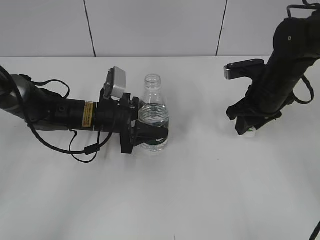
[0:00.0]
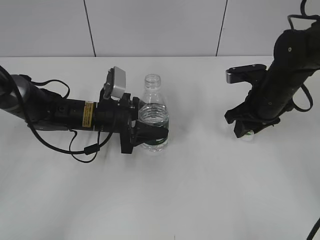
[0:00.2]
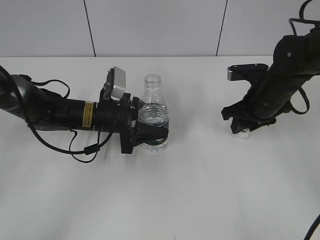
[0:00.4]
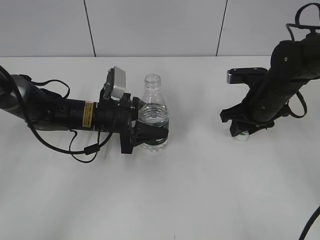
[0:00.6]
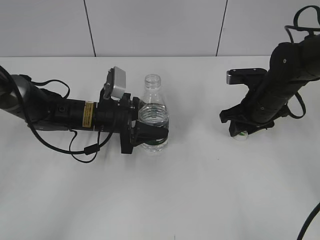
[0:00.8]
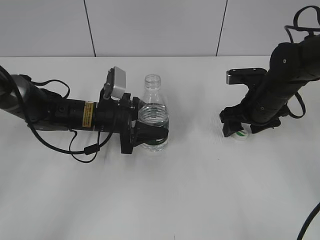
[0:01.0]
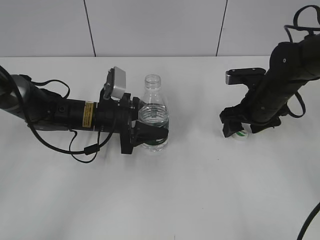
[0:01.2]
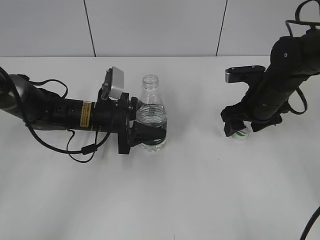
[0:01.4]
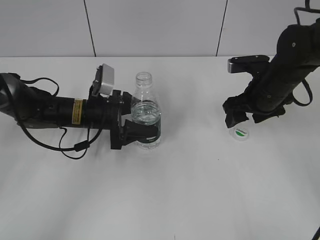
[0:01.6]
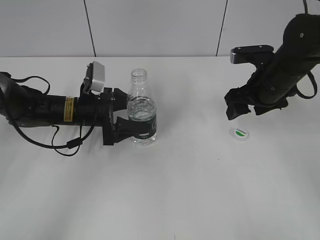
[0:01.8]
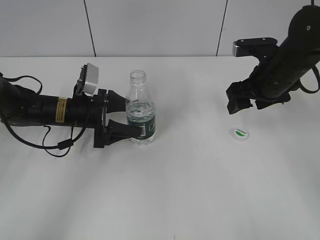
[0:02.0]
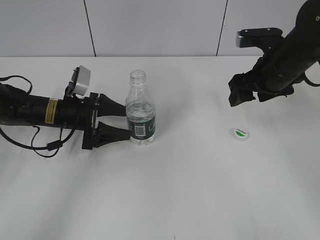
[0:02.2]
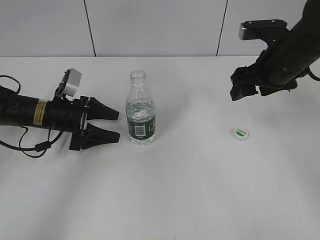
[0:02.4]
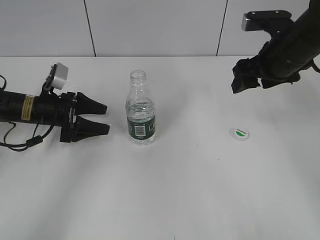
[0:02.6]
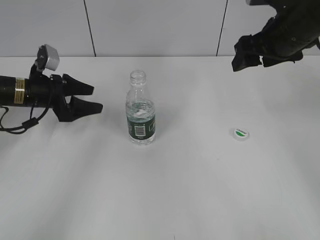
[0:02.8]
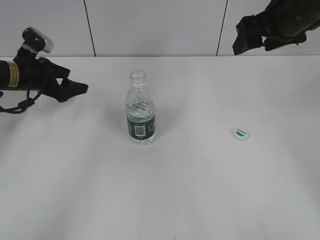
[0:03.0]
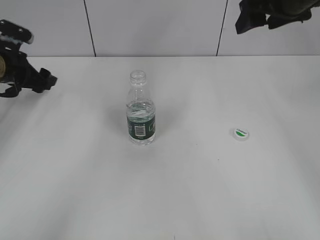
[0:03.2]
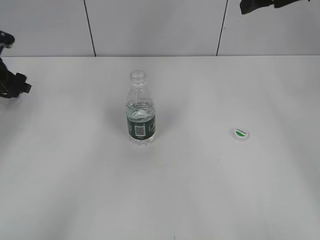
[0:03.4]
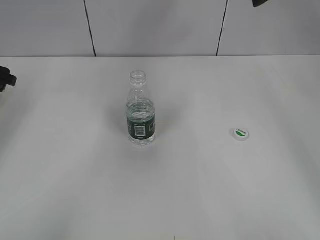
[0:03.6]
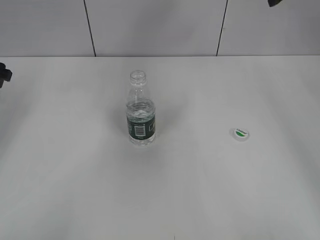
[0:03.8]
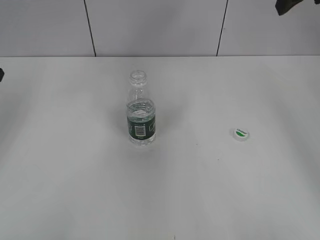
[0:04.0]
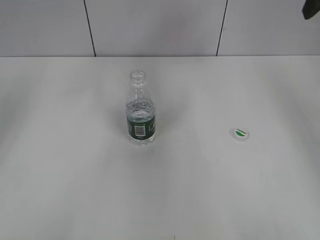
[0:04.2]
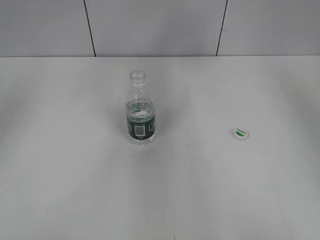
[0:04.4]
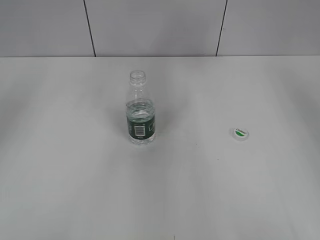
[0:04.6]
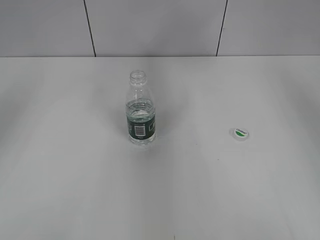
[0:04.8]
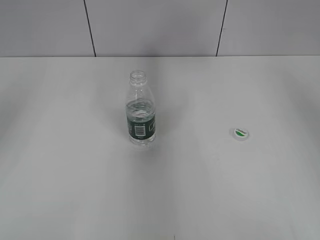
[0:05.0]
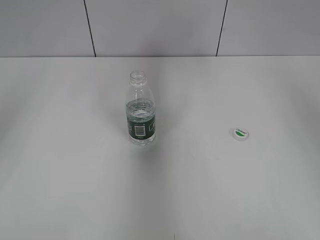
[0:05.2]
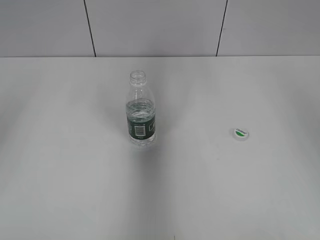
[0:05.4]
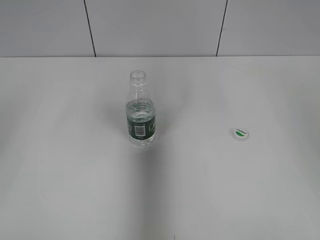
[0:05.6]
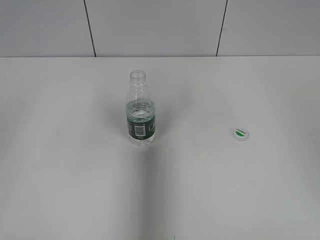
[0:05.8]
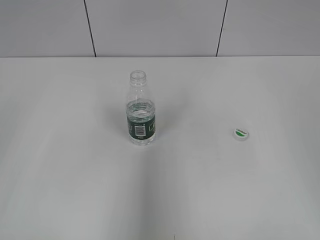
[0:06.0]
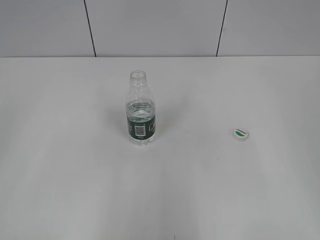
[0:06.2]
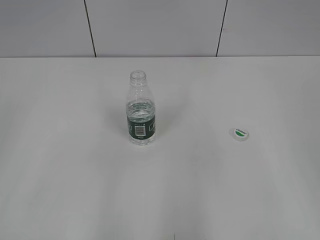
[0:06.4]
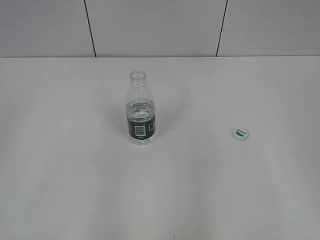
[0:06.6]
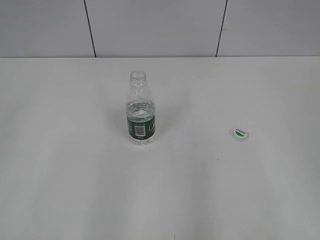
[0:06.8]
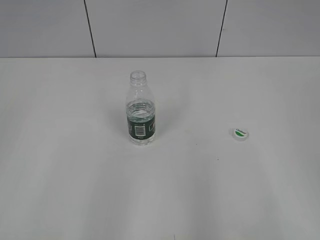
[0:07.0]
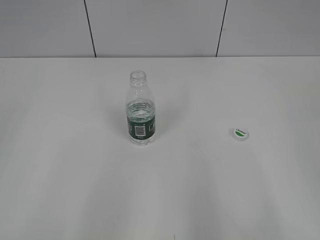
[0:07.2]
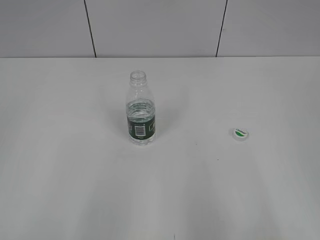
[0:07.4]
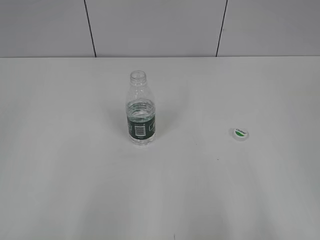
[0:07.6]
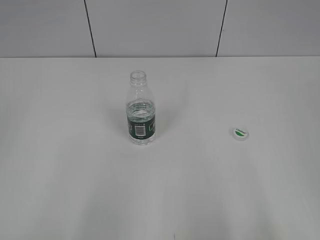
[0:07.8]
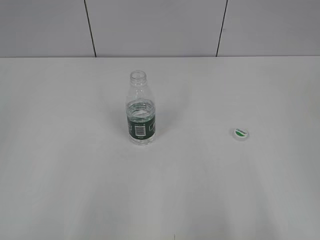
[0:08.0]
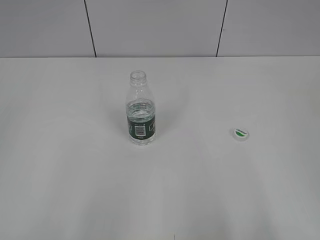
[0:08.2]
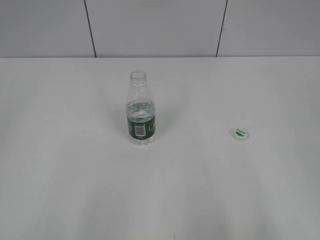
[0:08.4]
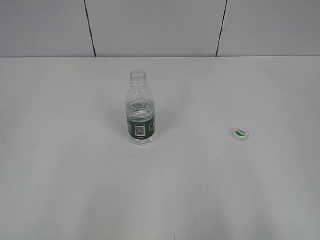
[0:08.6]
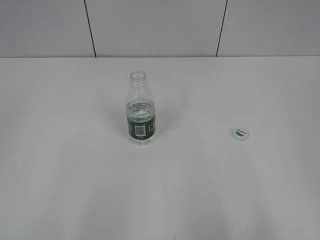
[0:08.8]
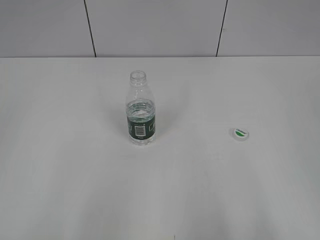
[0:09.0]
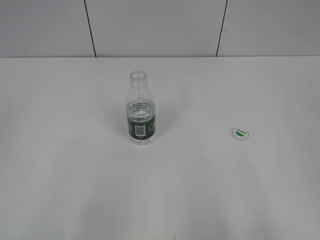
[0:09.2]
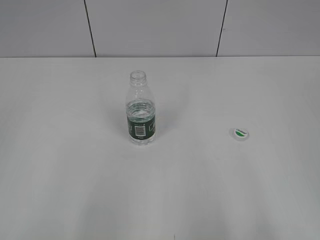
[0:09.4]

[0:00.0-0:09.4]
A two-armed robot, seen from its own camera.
Step, 0:00.0 to 0:02.0: Place the bottle on the table with the left gripper.
0:00.0 to 0:01.6: The left gripper opens, while the right gripper opens its fingers.
0:01.6 to 0:03.2: The right gripper shifts about 15 cm upward. Meanwhile the left gripper moves to the left, some 15 cm.
0:03.2 to 0:04.8: The right gripper shifts some 15 cm to the right and upward, while the left gripper shifts approximately 20 cm upward and backward.
0:04.8 to 0:06.2: Both grippers move backward, roughly 25 cm.
0:06.2 to 0:07.8: Both grippers travel together backward, some 10 cm. The left gripper closes its fingers.
0:07.8 to 0:09.4: The two grippers keep their place.
